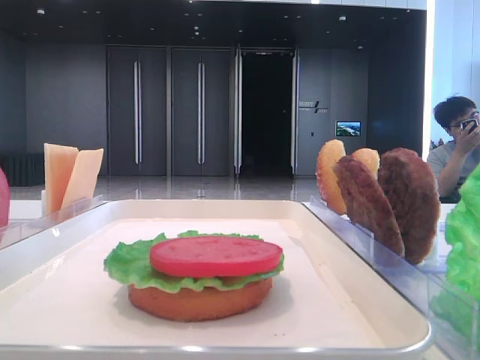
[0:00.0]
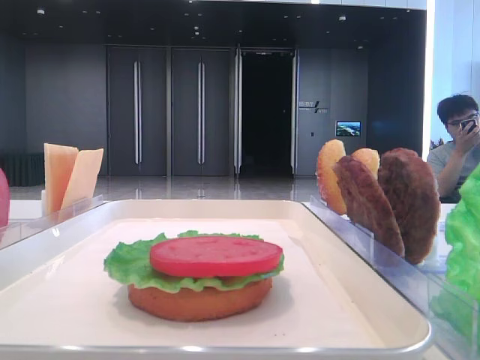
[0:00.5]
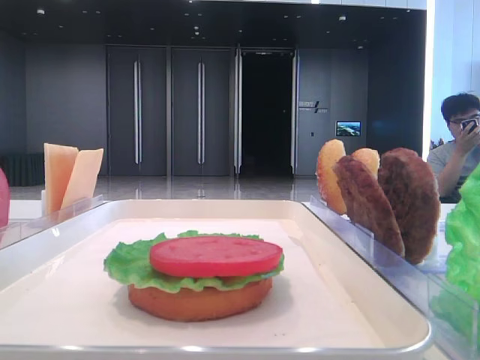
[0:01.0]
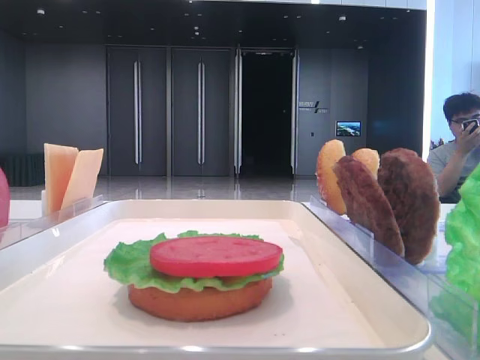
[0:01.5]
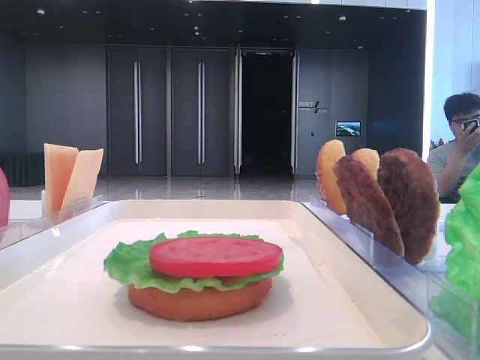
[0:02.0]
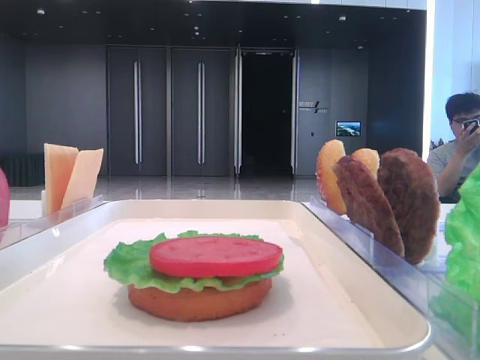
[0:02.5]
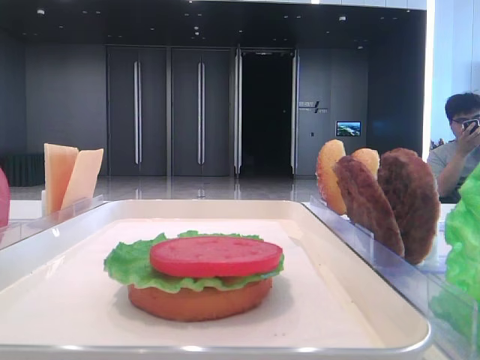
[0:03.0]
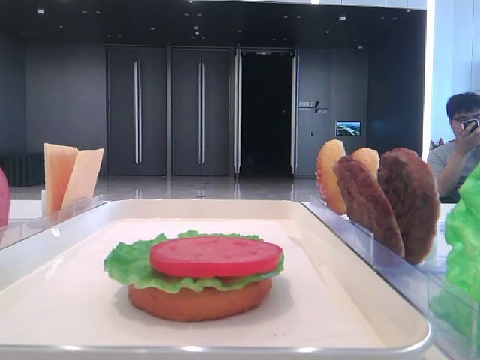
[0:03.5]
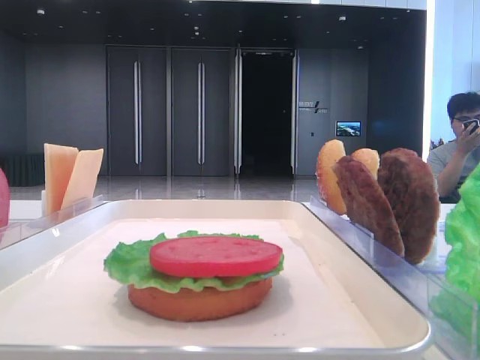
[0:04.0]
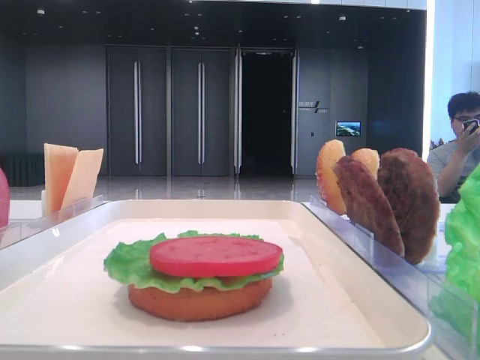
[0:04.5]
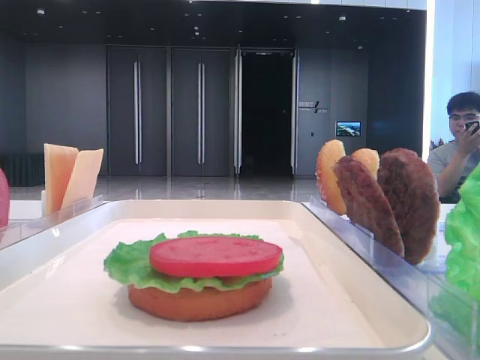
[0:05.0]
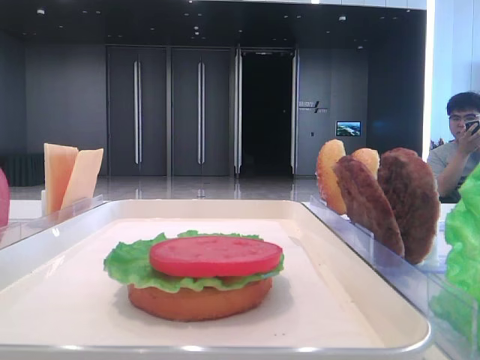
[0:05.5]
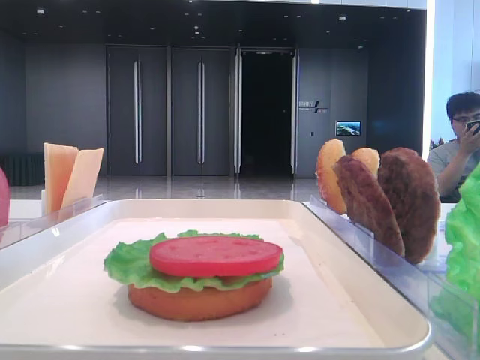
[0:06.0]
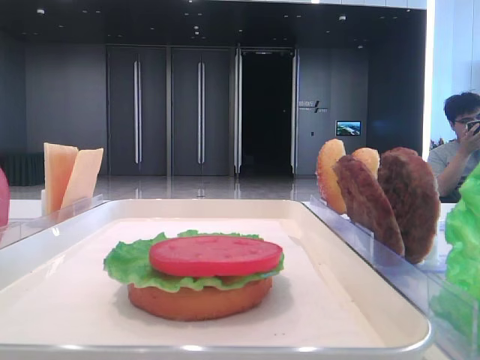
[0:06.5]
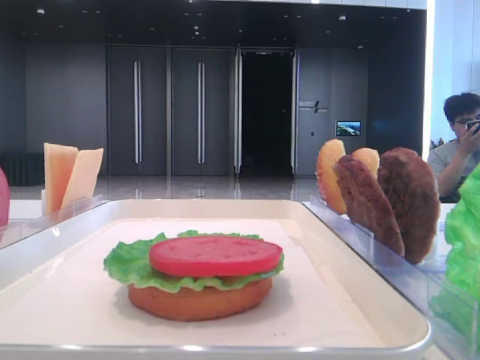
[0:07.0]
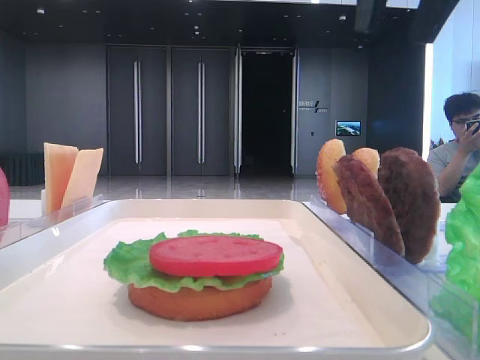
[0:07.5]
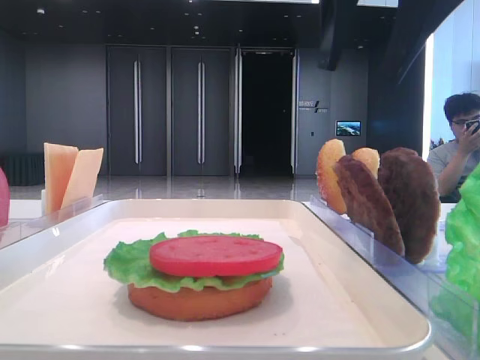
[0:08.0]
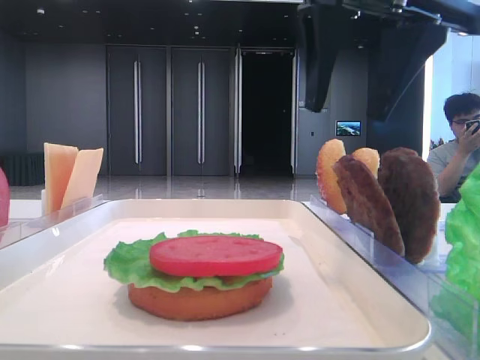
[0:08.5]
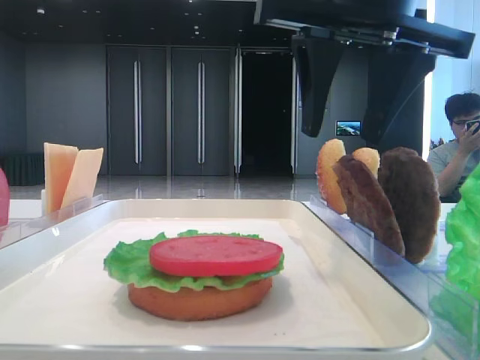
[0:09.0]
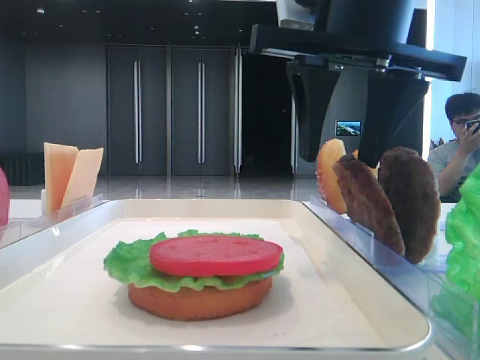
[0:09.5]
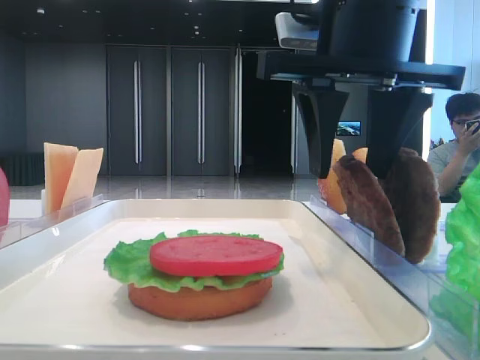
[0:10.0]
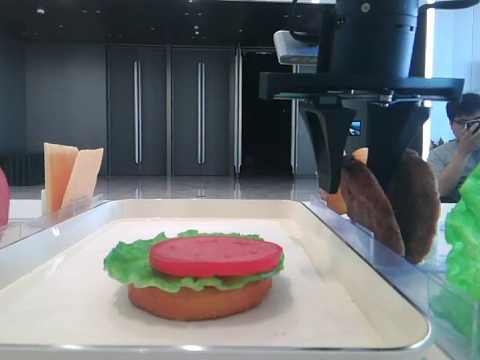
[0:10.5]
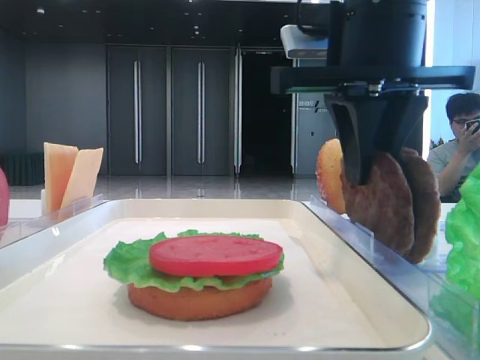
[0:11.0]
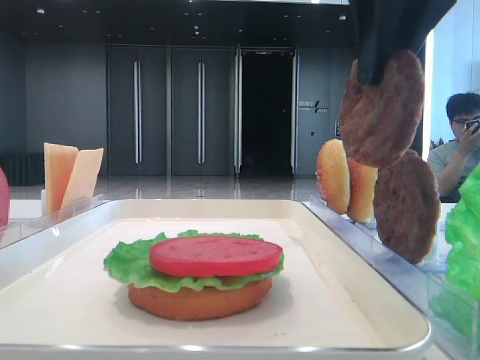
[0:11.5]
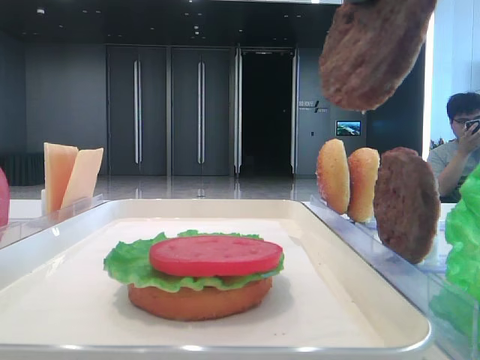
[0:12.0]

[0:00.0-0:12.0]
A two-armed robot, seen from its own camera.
Step, 0:00.0 to 0:10.5: Grab the patty with the right hand.
0:06.0 to 0:08.0: The right gripper travels to the left and forward by roughly 20 cm.
0:08.0 to 0:10.0: The right gripper moves downward, some 5 cm.
0:10.0 to 0:12.0: The right gripper heads upward and backward, covering some 15 cm, and closes.

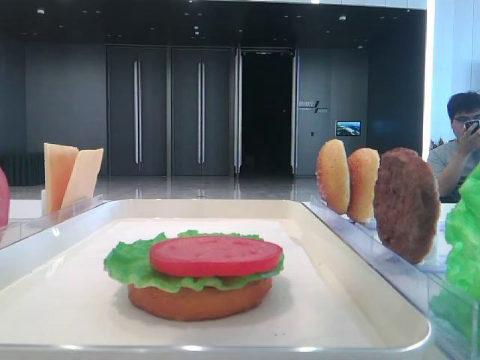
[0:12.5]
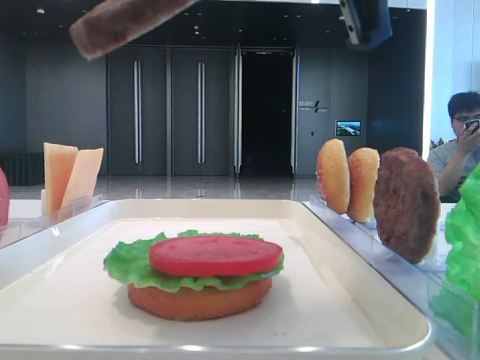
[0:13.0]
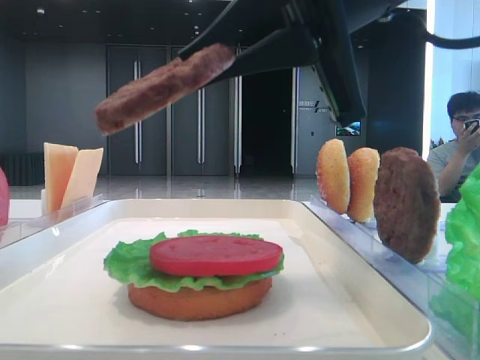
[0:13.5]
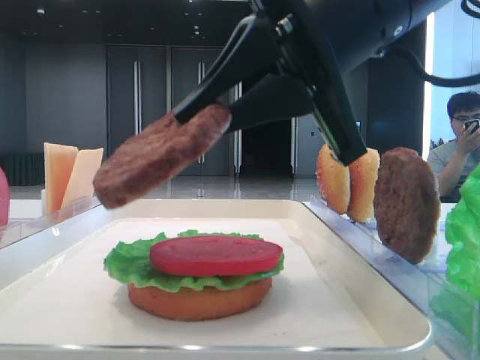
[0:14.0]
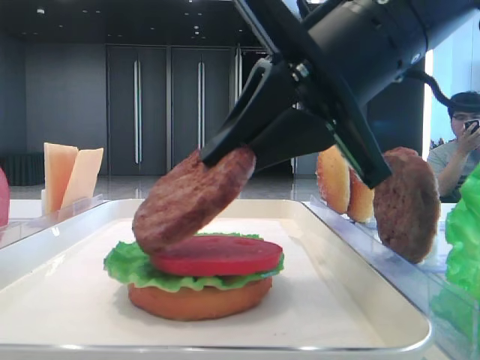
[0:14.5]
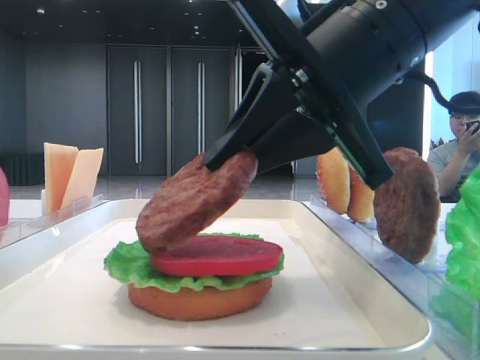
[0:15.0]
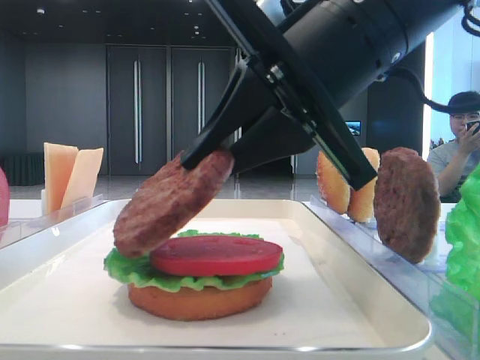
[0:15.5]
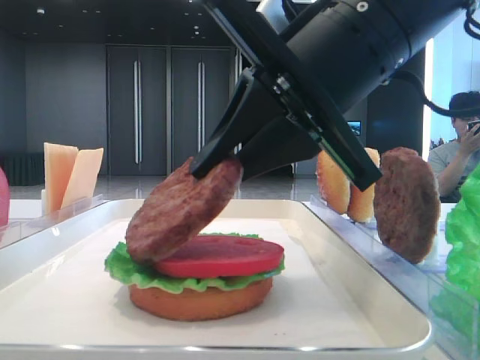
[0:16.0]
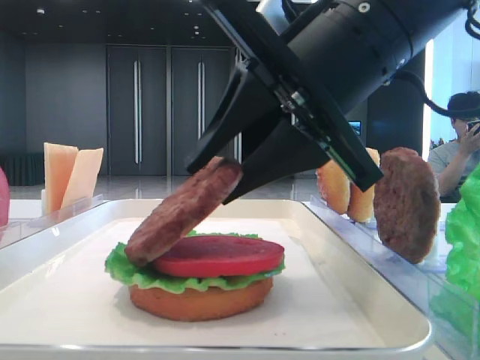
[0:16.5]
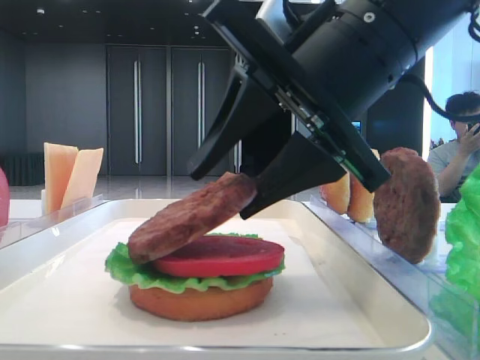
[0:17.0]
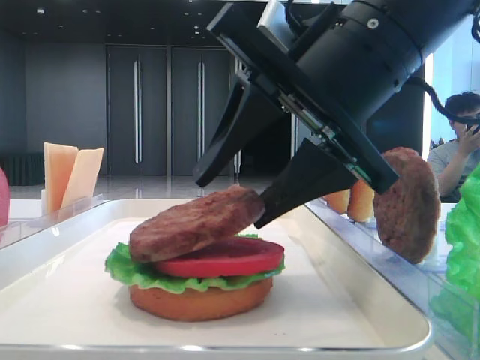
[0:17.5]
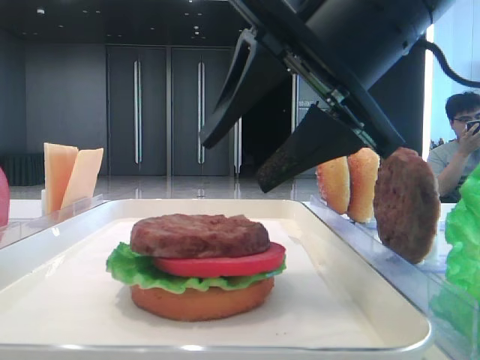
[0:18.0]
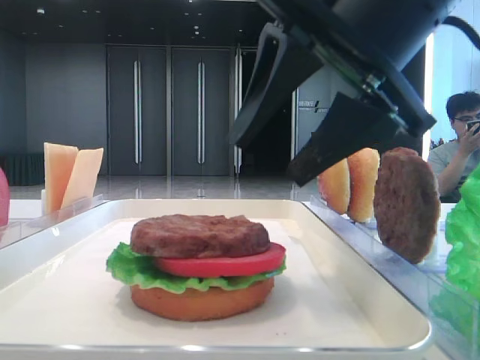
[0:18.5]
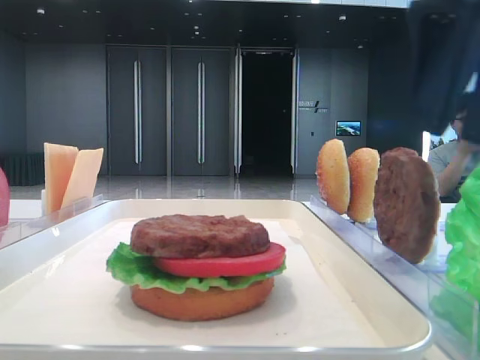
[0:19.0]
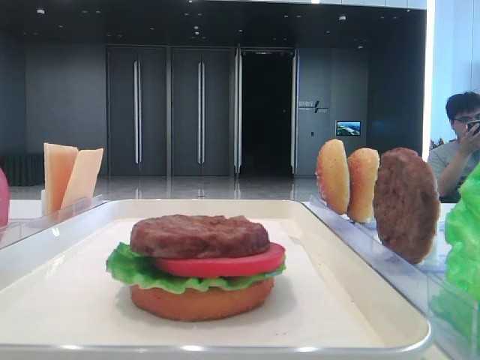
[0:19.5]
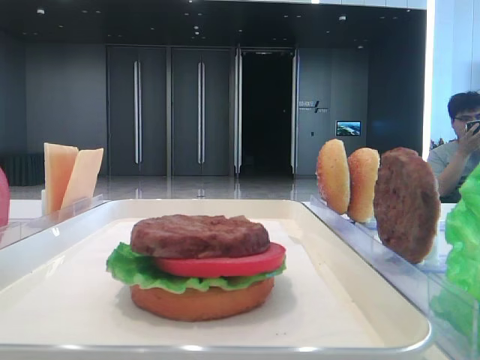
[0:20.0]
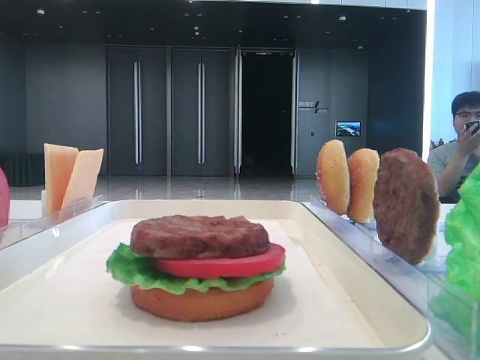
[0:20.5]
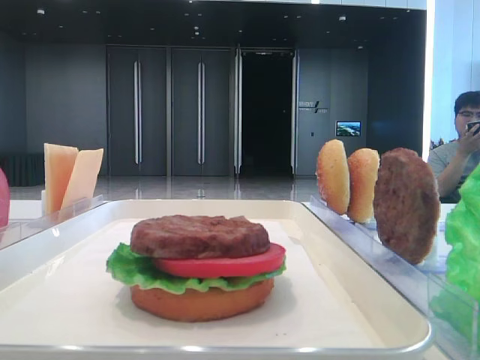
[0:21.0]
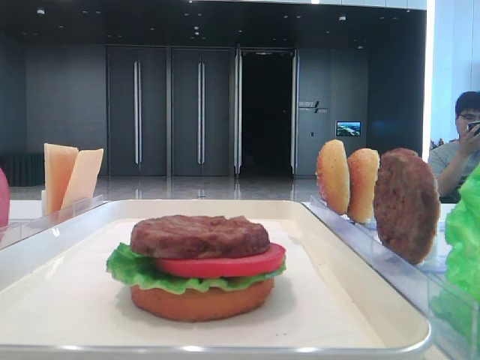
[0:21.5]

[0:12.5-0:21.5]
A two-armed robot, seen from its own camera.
Step, 0:12.5 to 0:17.5: Place the patty on the tomato slice with the right hand.
0:12.5 to 0:14.5: The right gripper shifts approximately 15 cm downward and forward.
0:14.5 to 0:17.0: The right gripper opens.
0:17.0 to 0:19.5: The right gripper travels to the right and upward by roughly 25 cm.

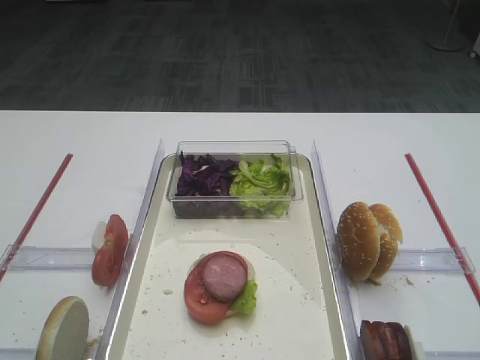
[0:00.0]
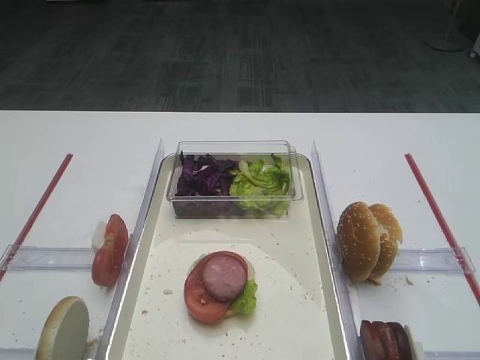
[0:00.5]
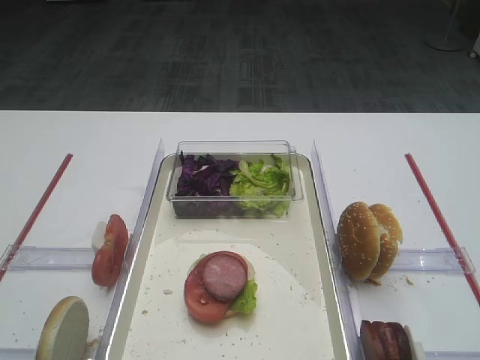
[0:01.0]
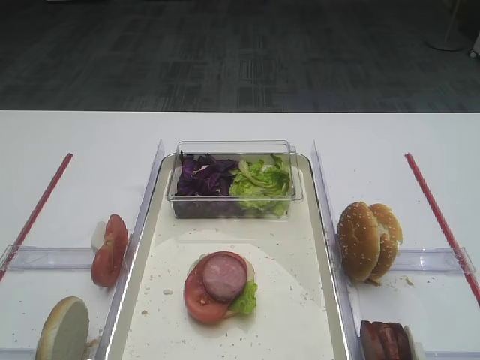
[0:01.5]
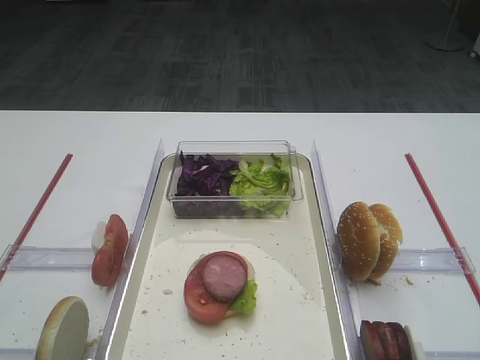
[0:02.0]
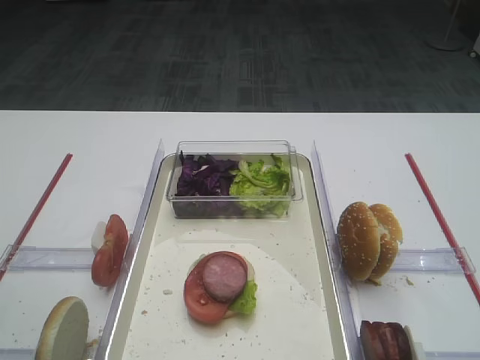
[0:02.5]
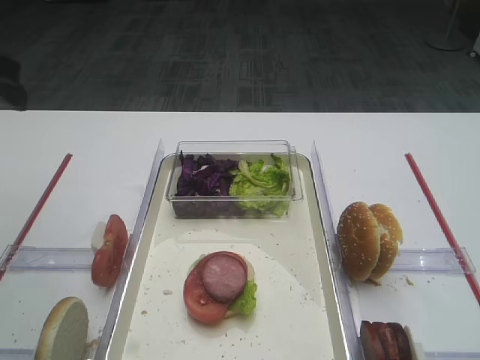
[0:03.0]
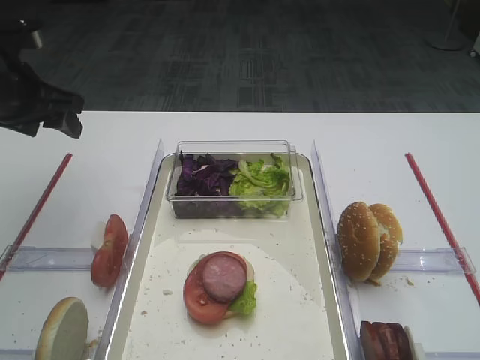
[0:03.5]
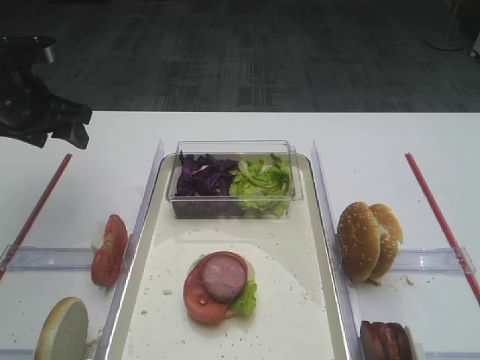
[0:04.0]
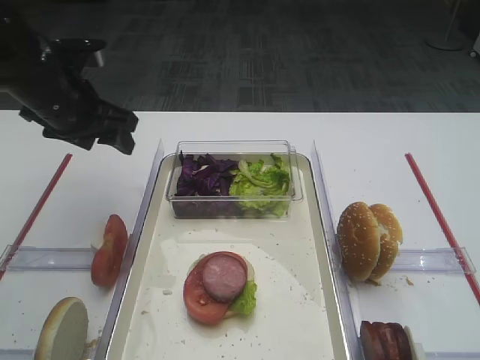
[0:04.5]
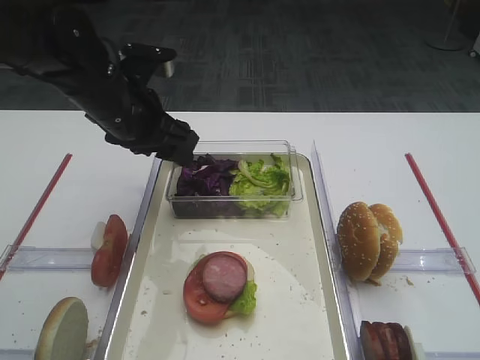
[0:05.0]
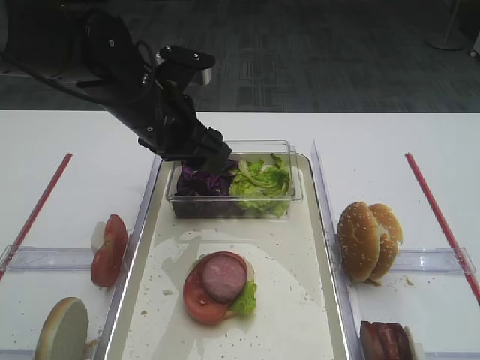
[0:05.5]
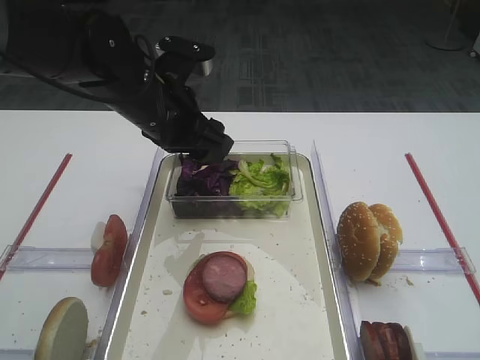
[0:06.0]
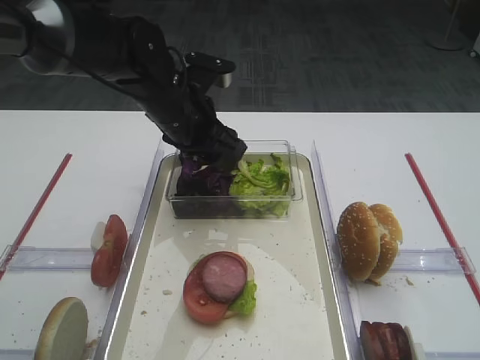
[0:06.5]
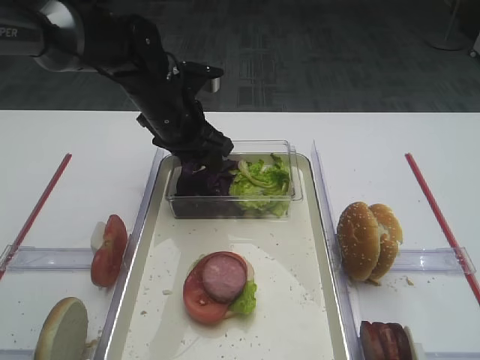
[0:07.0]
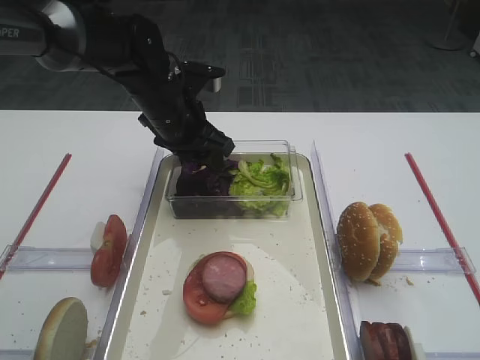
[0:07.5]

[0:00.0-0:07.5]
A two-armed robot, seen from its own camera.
0:02.0 to 0:04.0: The left gripper is displaced forward by about 40 cm.
0:04.0 to 0:05.5: The left gripper heads to the right, covering roughly 20 cm.
0:05.5 to 0:07.5: The left gripper goes about 5 cm forward.
